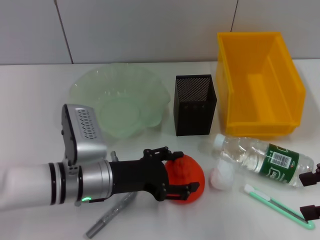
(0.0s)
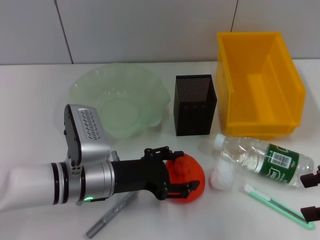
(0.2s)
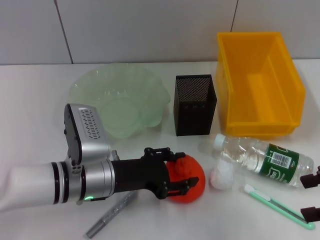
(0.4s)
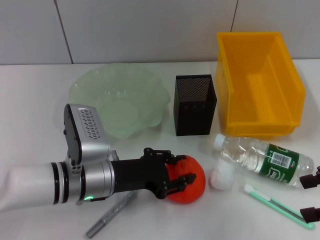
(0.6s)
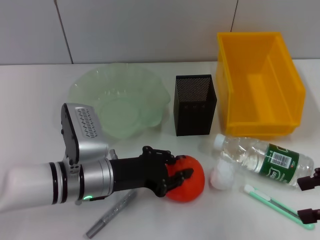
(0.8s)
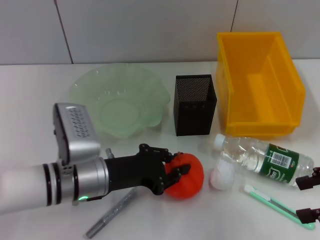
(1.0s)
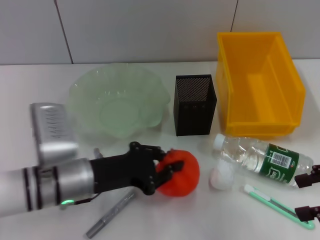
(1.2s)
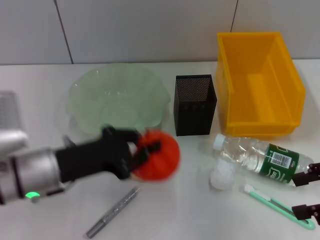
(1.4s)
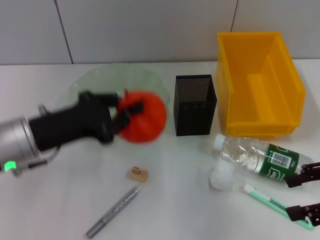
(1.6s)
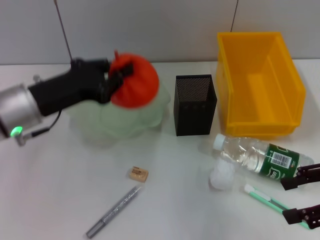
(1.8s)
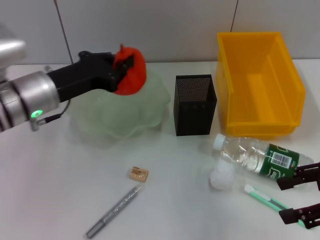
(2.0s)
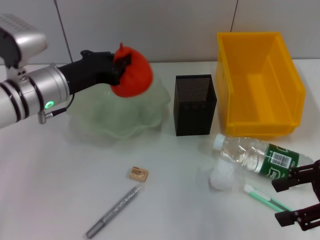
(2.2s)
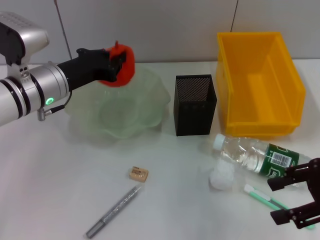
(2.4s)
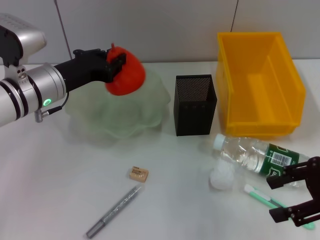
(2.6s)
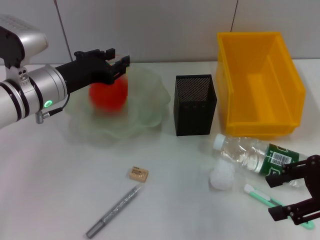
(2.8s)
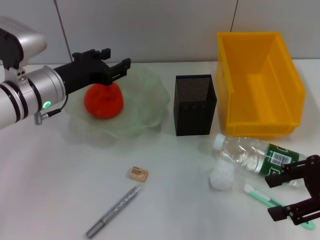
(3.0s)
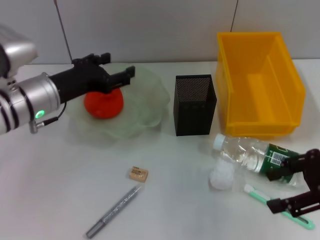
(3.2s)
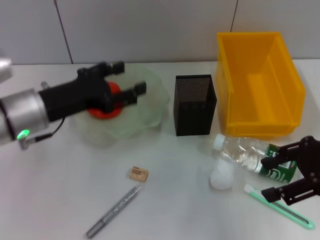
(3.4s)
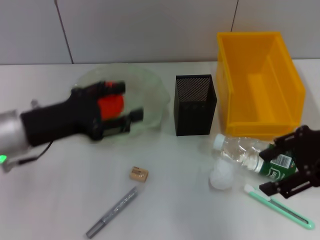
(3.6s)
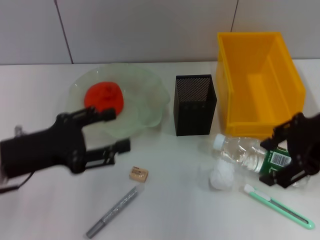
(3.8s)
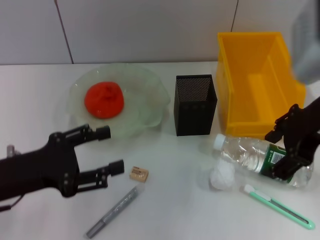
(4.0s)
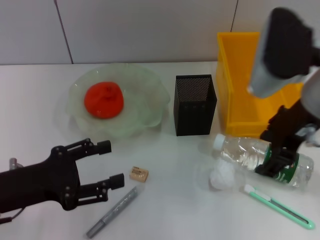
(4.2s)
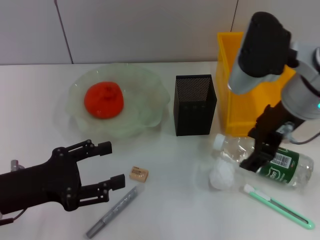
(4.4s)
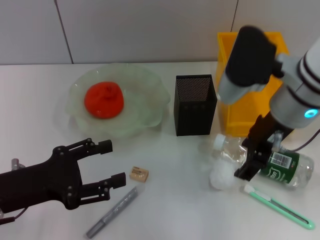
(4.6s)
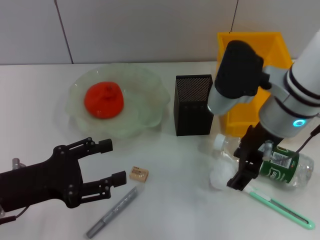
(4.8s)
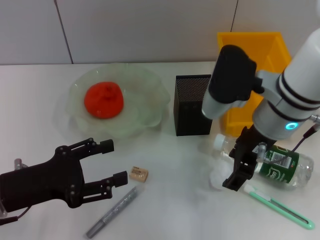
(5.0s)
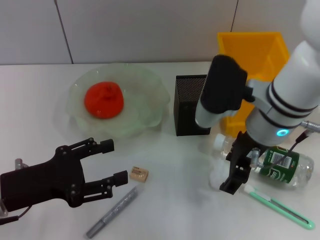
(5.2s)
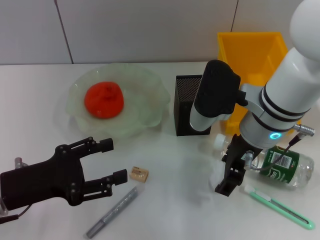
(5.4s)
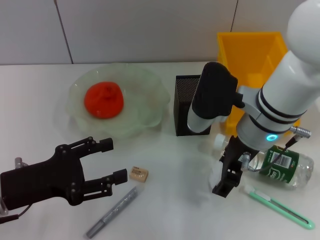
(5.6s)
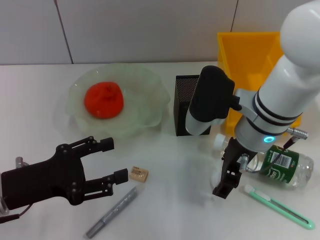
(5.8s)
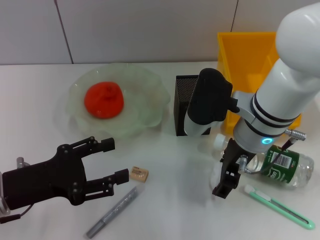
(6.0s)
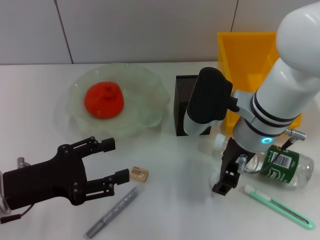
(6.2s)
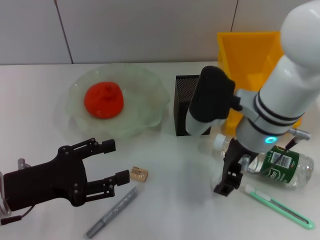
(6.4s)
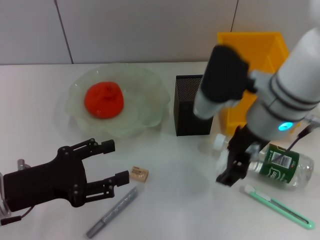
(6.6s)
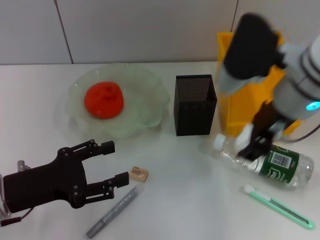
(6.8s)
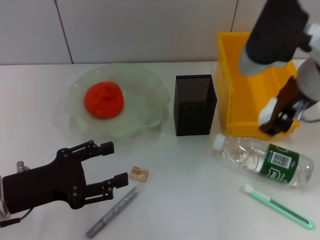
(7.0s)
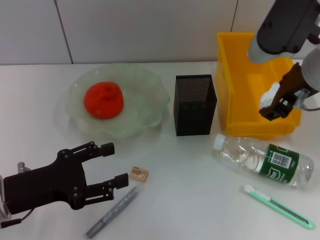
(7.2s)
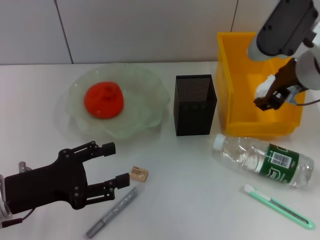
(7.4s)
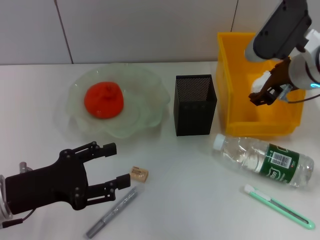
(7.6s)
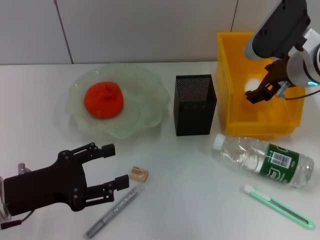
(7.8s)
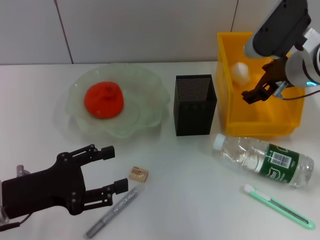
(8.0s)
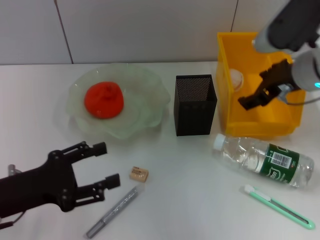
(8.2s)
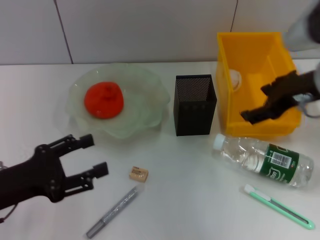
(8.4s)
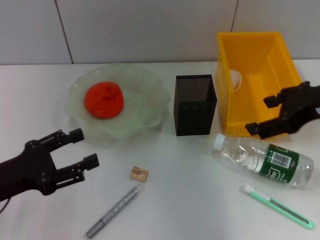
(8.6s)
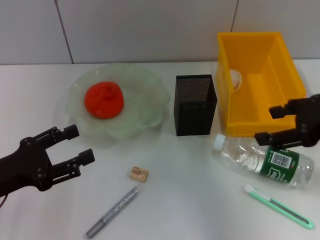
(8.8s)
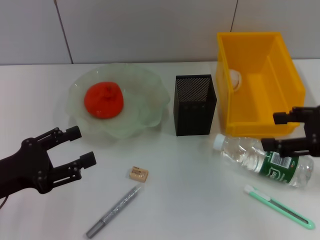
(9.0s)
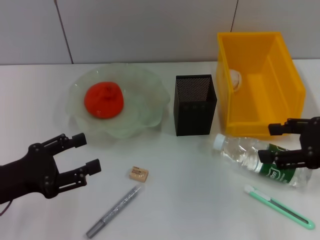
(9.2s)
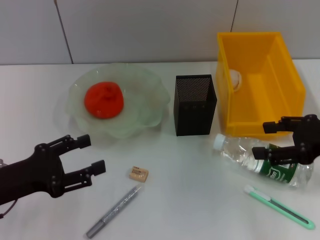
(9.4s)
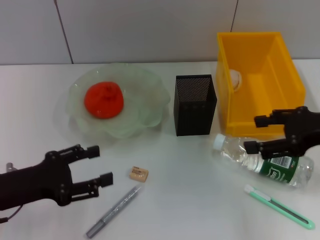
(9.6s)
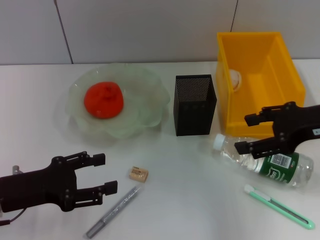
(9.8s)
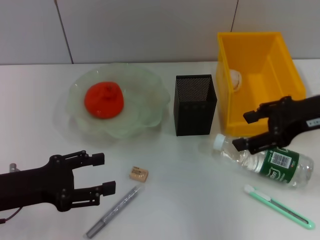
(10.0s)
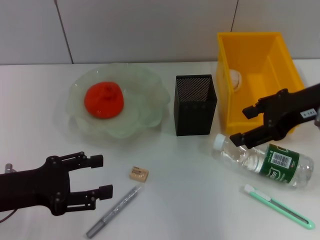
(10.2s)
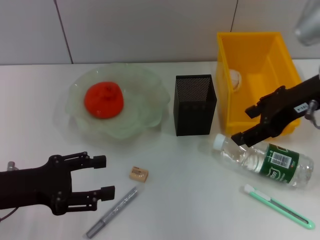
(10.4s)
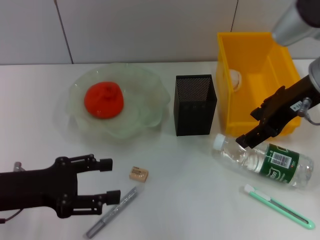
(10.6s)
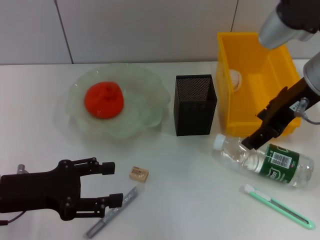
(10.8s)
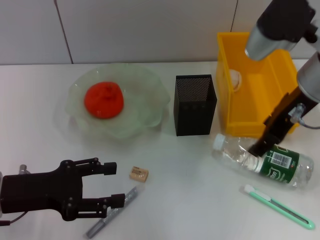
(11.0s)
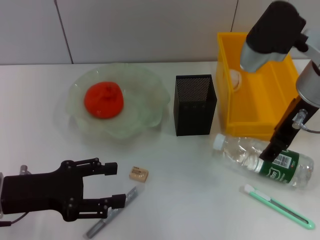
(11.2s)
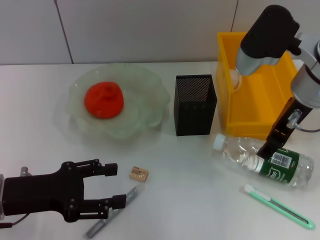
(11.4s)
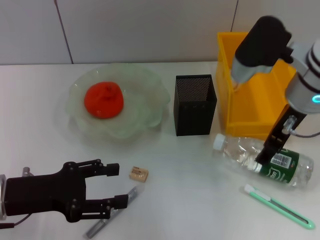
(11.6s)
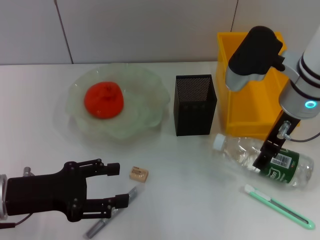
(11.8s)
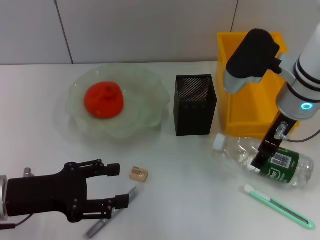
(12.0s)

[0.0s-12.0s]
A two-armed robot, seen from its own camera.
Step, 1.2s to 2.8s: Place the orange into the fruit bowl with the left hand.
Step, 3.0s to 6.2s: Grab the paper ball with the right hand.
Step, 6.4s to 8.0s: Place the paper ball into the trash can with the right hand.
0.0s to 1.6s: The left gripper shifts about 10 cm upward and to the left, and closes.
1.6s to 3.0s: The left gripper heads forward, covering approximately 10 cm.
3.0s to 4.4s: The right gripper goes roughly 15 cm to the left and forward; the left gripper goes some 15 cm backward, and opens its fingers.
4.4s to 6.0s: The right gripper is displaced downward by some 10 cm.
6.0s to 7.6s: The right gripper shifts approximately 10 cm to the right.
7.6s to 9.0s: The right gripper goes some 15 cm to the right and backward.
9.0s to 10.4s: The right gripper travels to the left and forward by about 10 cm.
10.4s to 12.0s: The right gripper travels downward by some 5 cm.

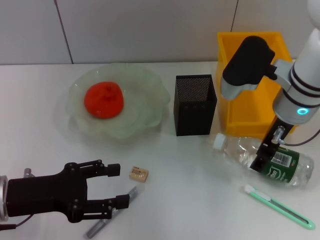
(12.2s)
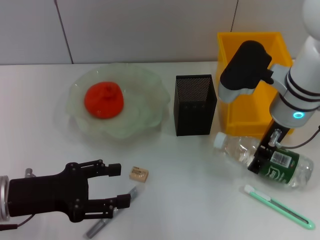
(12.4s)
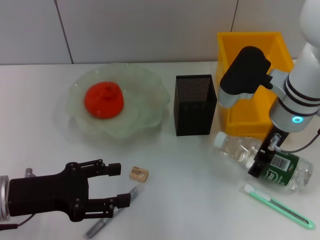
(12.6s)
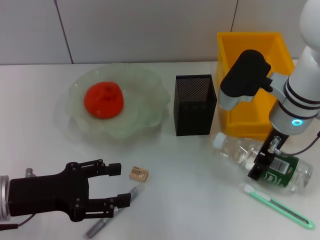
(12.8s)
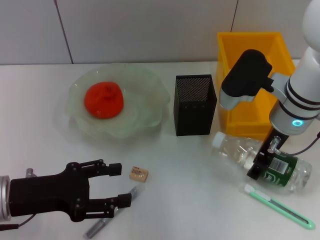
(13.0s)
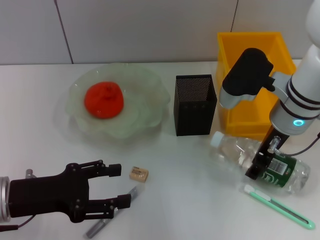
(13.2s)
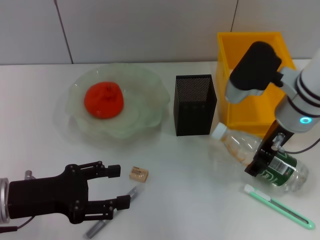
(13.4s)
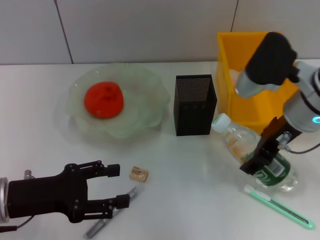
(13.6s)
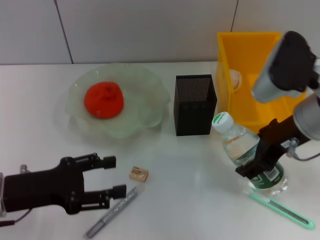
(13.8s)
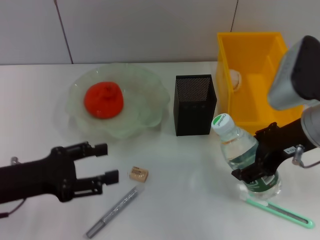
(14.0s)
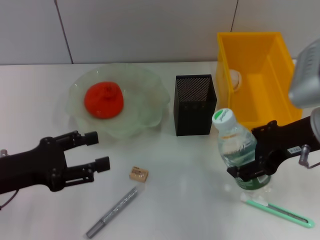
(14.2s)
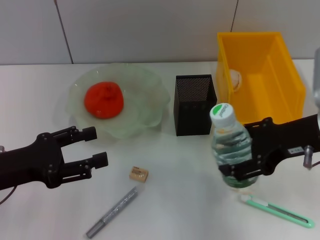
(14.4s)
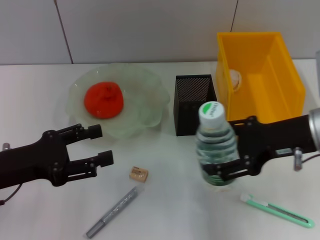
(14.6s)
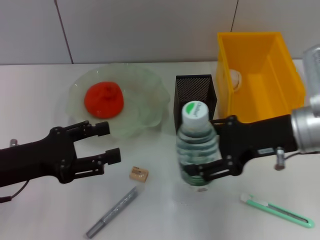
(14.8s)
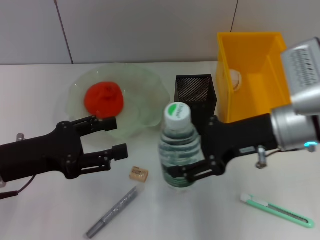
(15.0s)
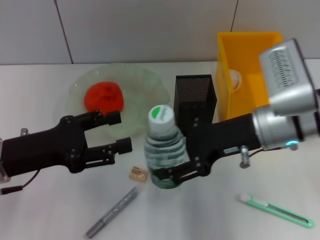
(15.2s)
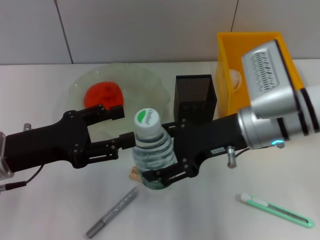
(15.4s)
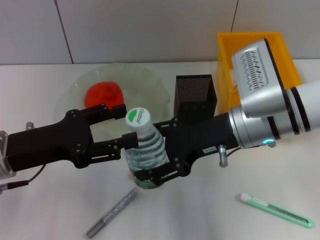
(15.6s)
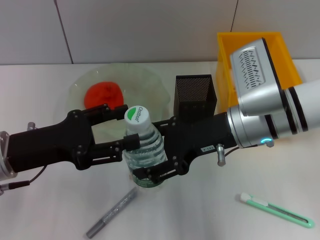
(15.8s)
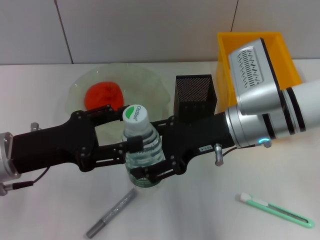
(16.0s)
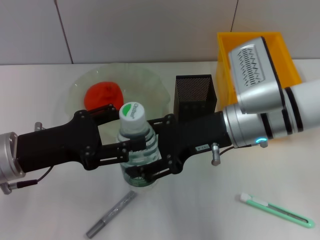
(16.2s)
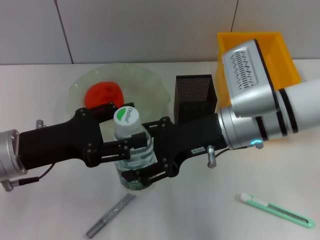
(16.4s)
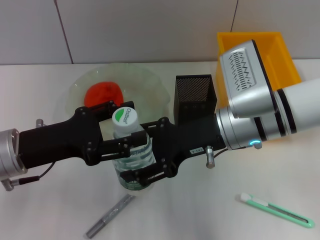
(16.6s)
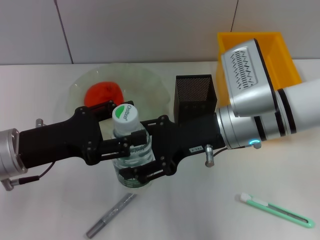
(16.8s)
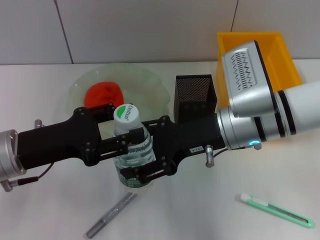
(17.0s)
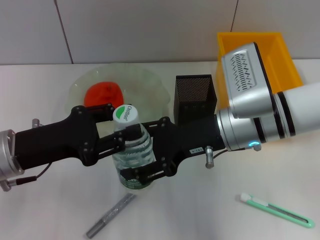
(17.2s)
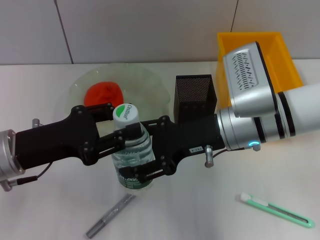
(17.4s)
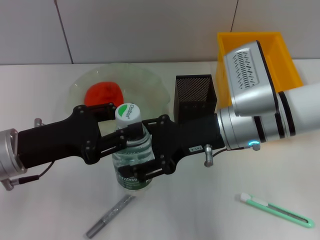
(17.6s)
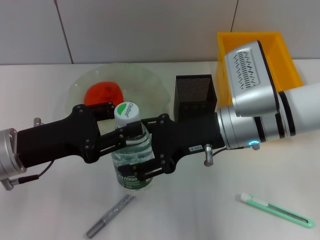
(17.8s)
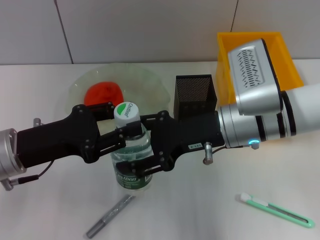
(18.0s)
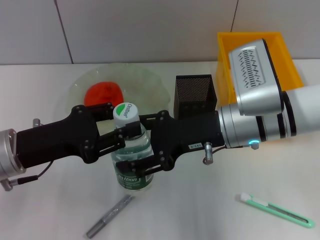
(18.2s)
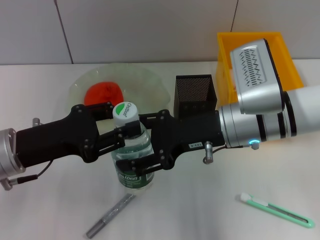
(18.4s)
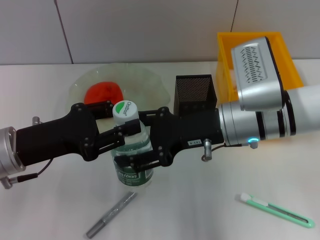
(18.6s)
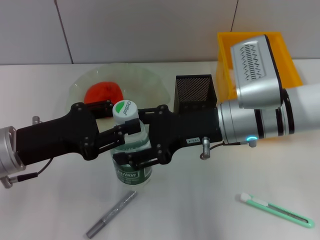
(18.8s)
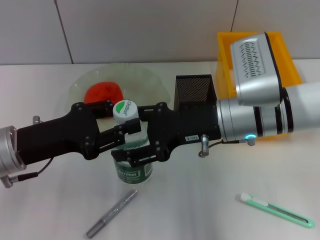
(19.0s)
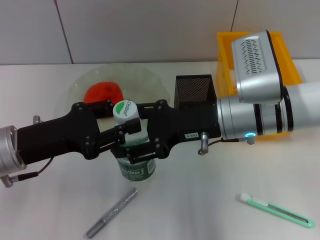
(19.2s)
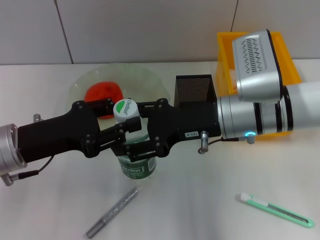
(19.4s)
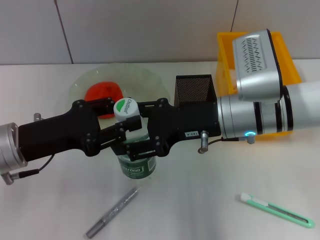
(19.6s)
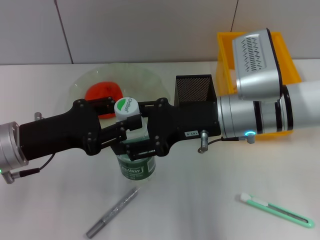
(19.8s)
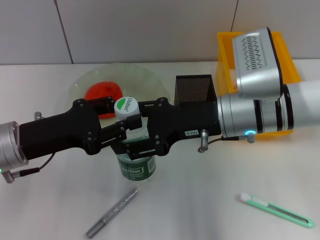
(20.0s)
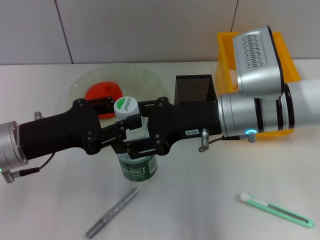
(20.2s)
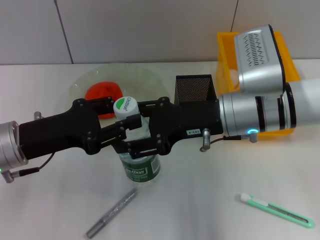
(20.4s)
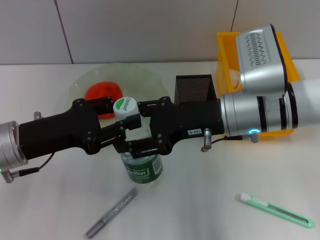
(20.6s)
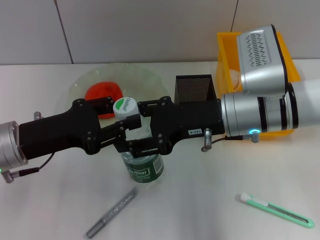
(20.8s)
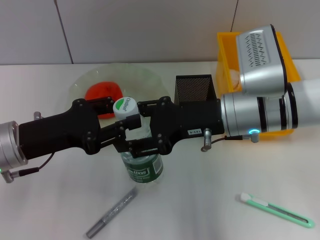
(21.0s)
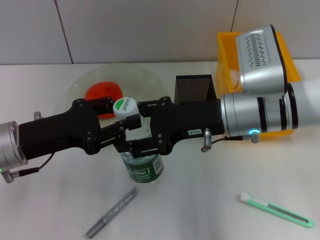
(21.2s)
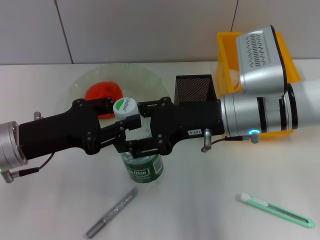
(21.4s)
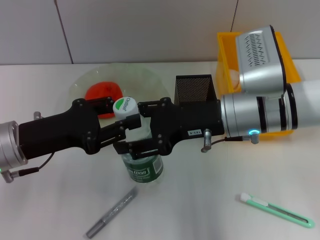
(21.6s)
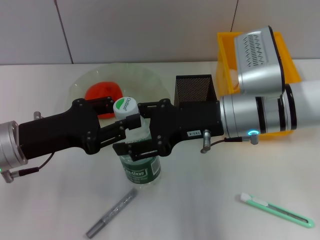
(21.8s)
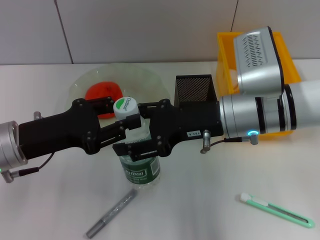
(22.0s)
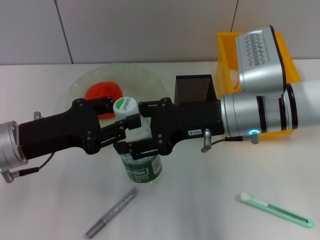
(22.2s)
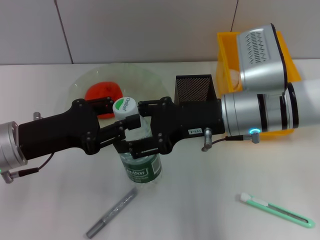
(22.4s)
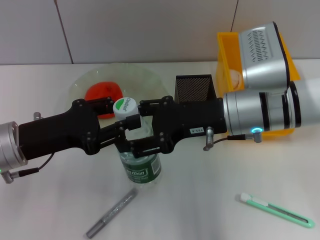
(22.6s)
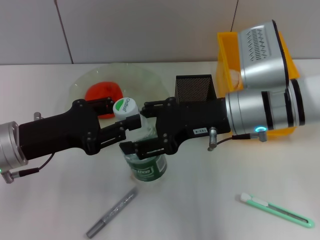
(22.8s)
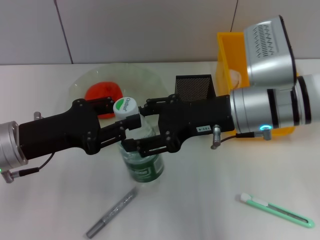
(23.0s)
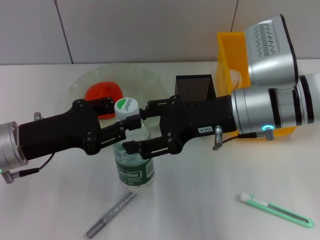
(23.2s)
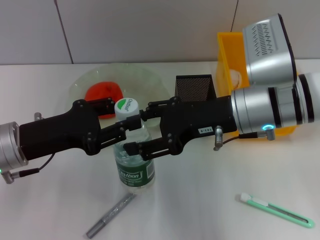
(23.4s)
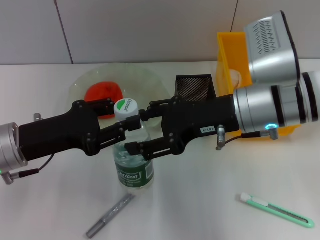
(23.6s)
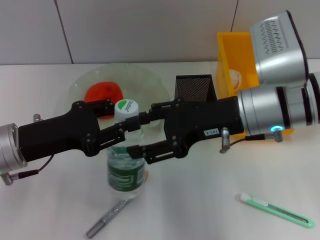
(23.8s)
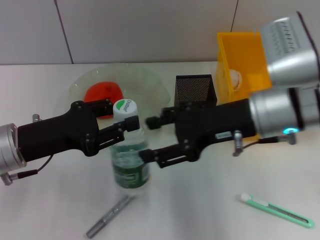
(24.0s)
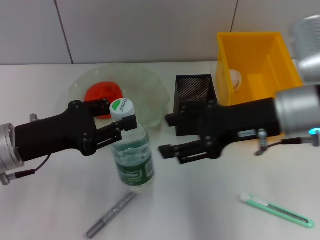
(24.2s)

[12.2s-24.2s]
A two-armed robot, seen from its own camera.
Step, 13.2s to 20.0s: Pass the water bottle from the right hand to the left hand.
12.2s to 13.8s: The right gripper ends up some 5 cm from where it was.
16.6s to 18.2s: The left gripper closes up.
18.2s to 19.8s: The grippers make only small movements.
19.8s to 22.6s: Both grippers stay about where they are.
22.6s to 24.2s: The right gripper moves to the right, about 5 cm.
